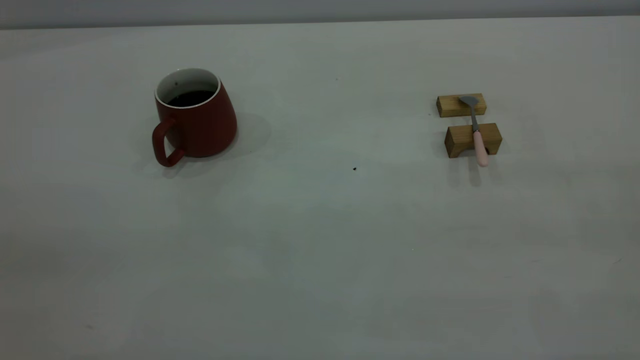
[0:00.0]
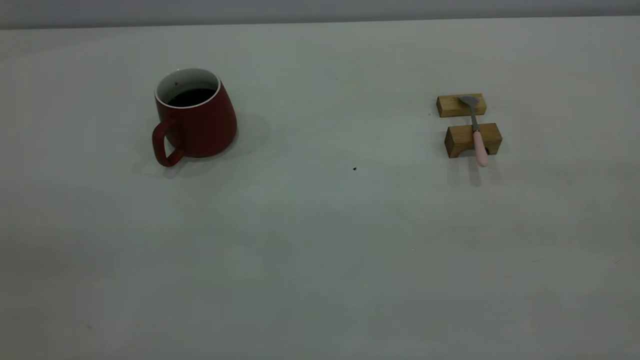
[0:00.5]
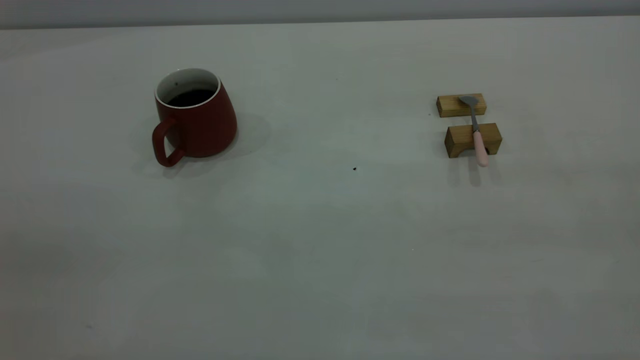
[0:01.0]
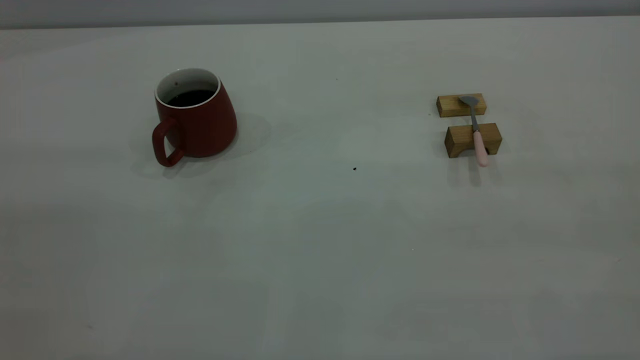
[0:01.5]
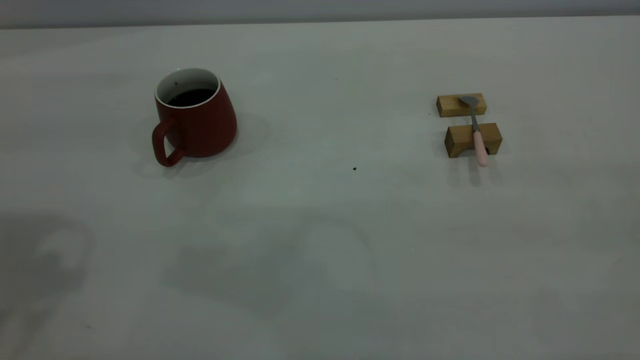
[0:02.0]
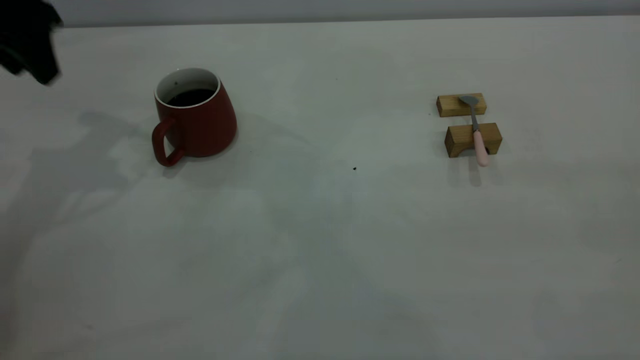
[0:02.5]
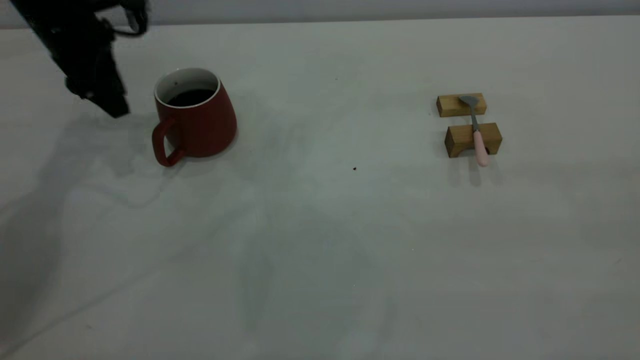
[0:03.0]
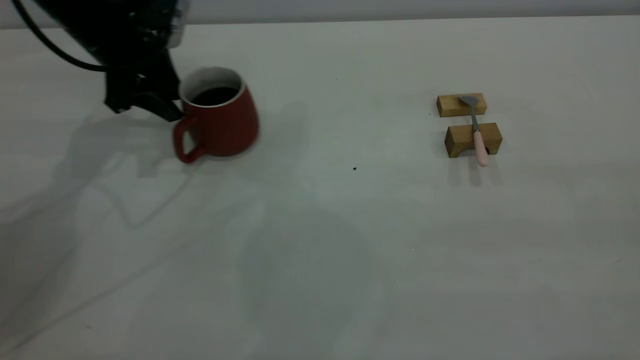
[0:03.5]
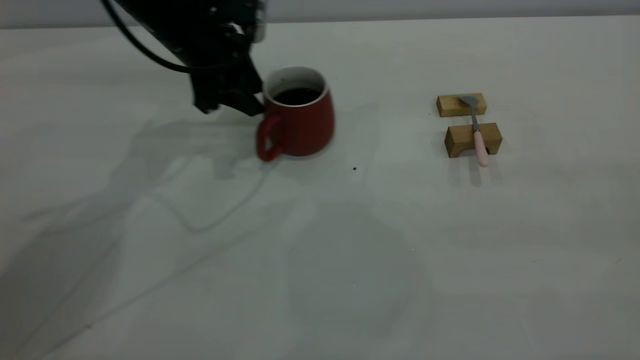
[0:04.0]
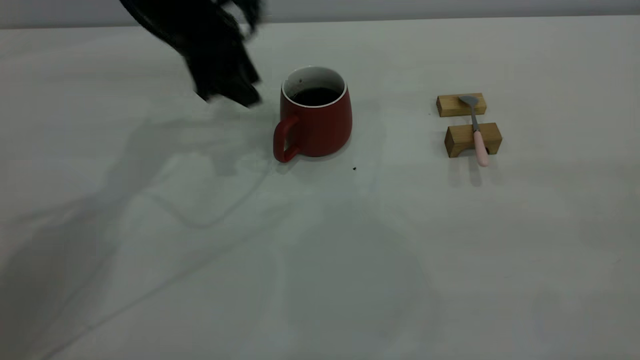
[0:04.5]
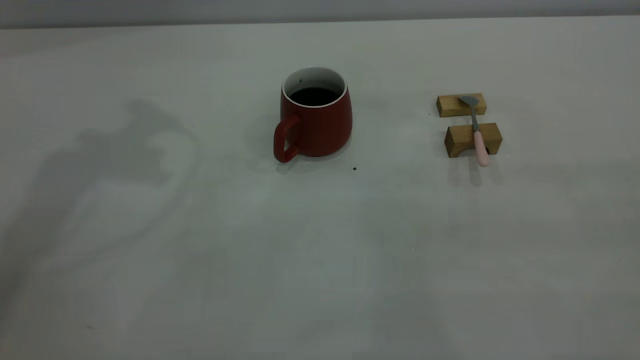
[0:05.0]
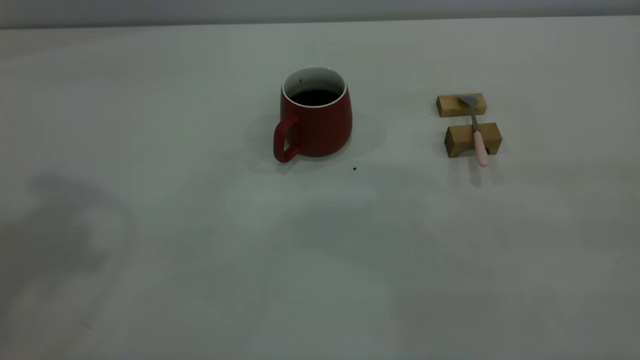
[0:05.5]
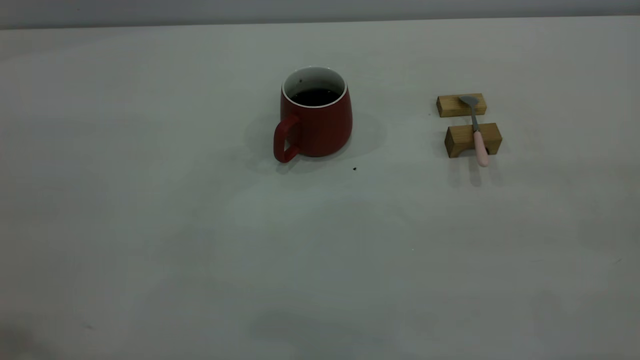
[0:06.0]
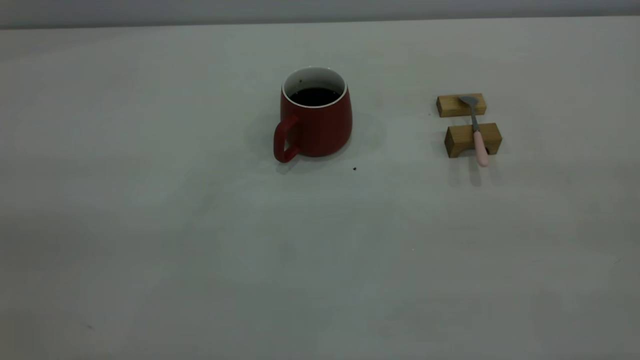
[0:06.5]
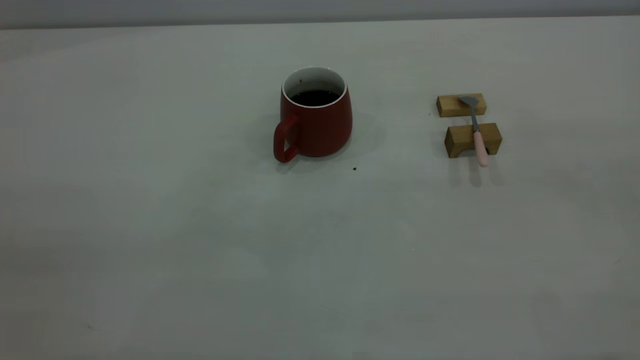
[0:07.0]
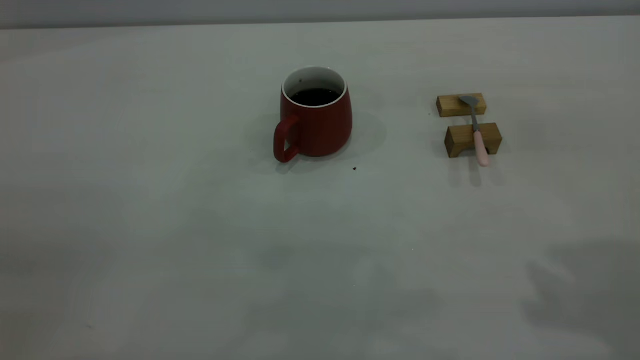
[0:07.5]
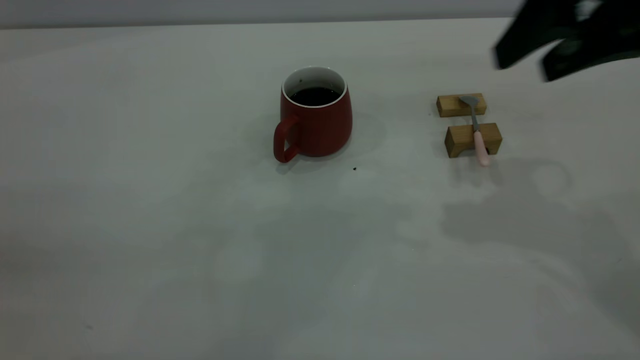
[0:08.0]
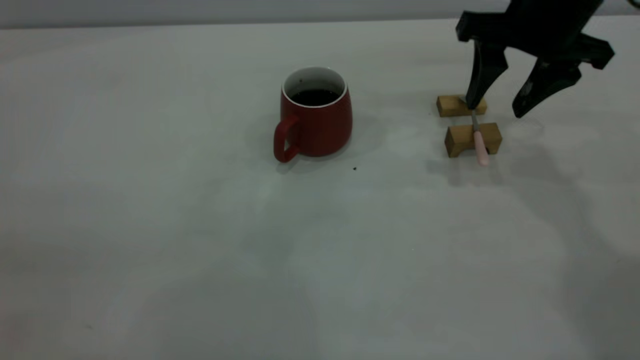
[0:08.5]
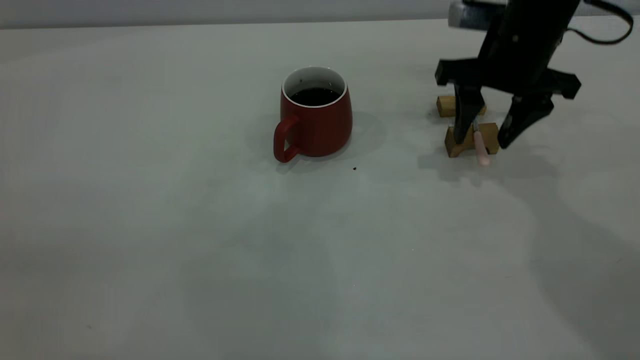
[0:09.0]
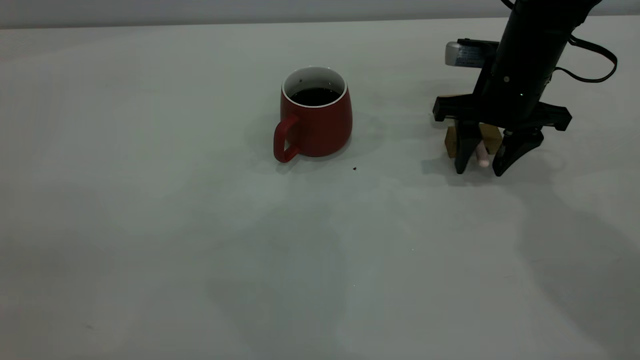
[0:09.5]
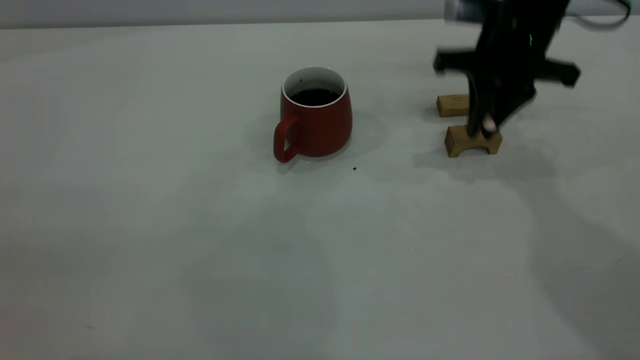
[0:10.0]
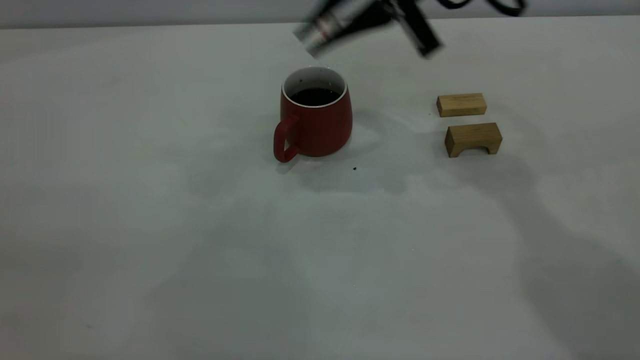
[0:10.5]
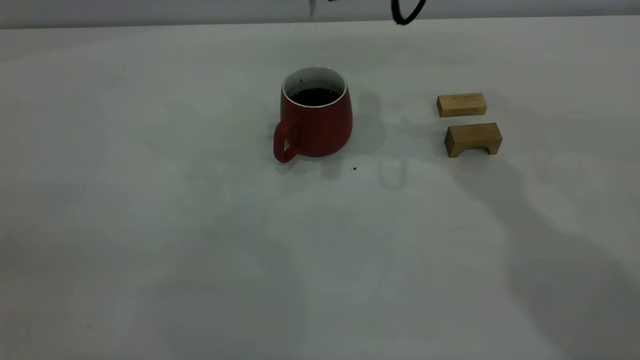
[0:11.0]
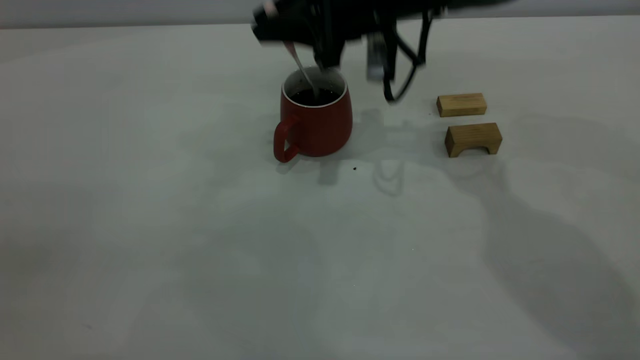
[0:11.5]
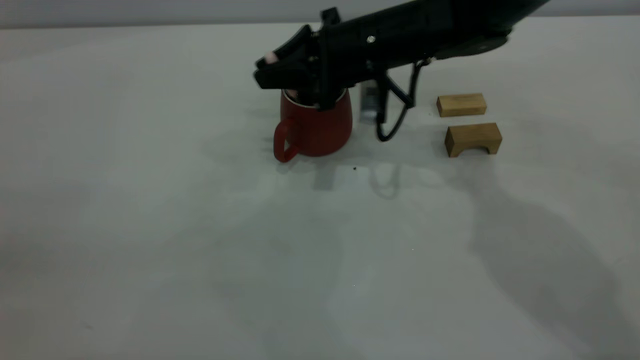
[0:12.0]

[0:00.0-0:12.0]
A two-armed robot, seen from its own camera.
Step, 0:00.0 to 0:04.5: Move the cup with coffee to the center of view.
Step, 0:05.0 to 0:09.5: Pick up the spoon.
0:02.0 to 0:04.0: The left gripper goes some 35 cm forward, downward and to the right.
0:04.0 to 0:06.0: The left gripper goes approximately 40 cm backward and upward.
0:06.0 to 0:08.0: The right gripper travels forward by approximately 30 cm, and opens up.
0:08.0 to 0:10.0: The right gripper goes roughly 15 cm forward and downward, and closes up.
0:10.0 to 0:12.0: The right gripper is displaced to the left and downward by approximately 15 cm.

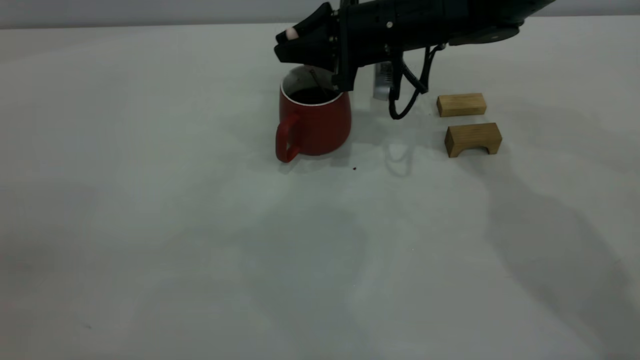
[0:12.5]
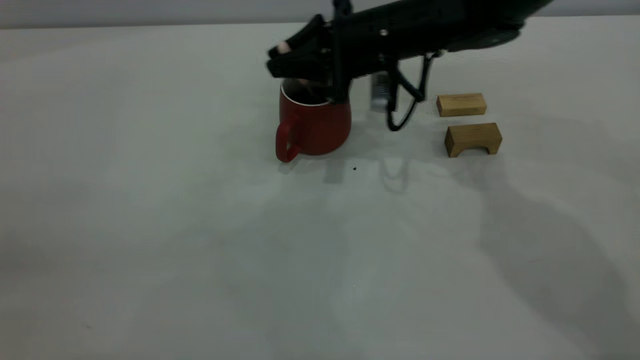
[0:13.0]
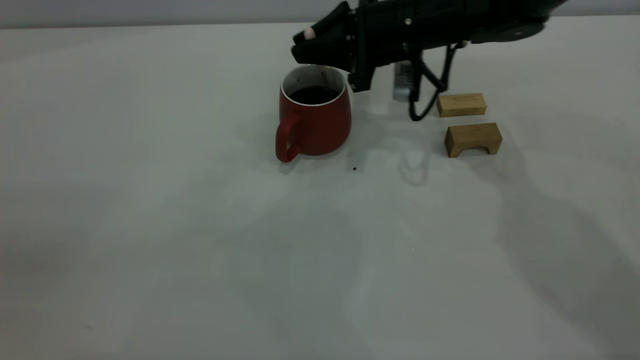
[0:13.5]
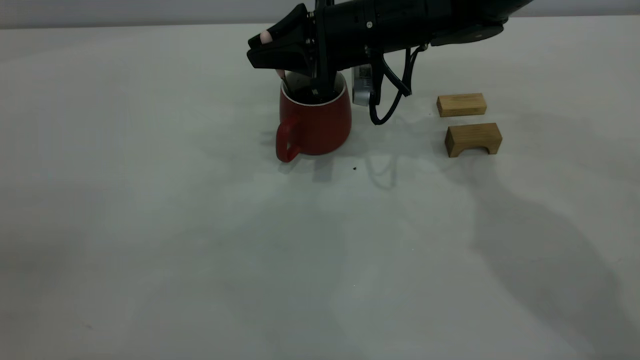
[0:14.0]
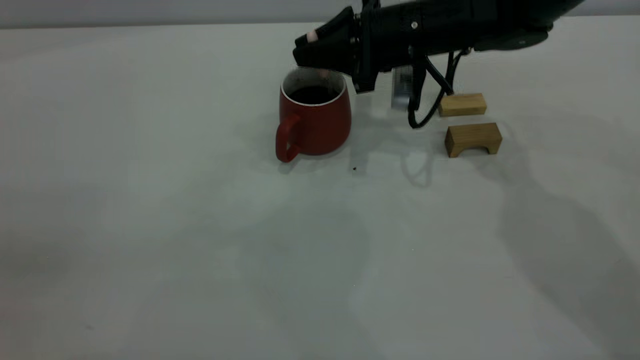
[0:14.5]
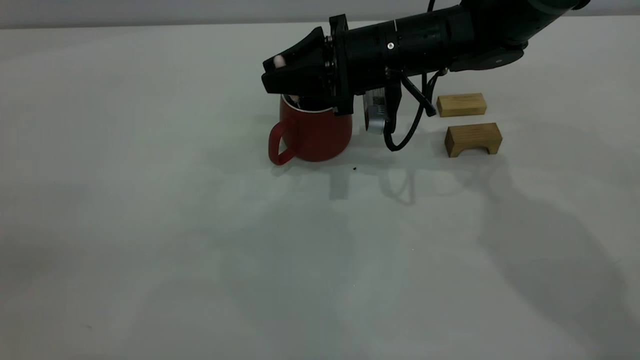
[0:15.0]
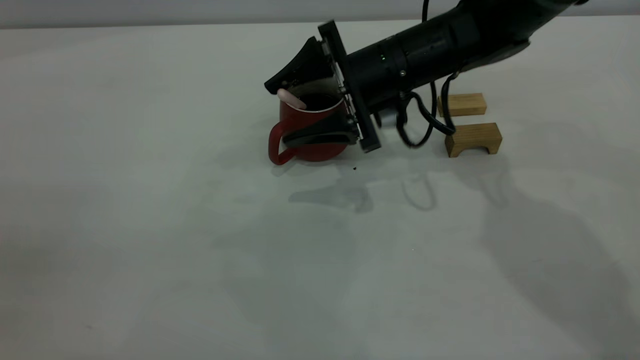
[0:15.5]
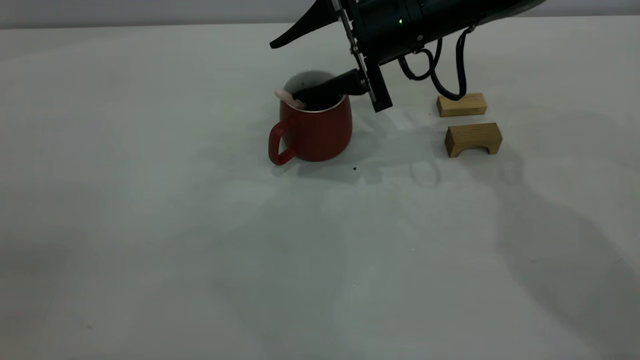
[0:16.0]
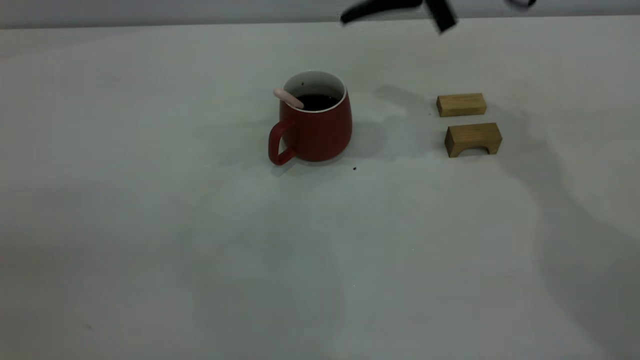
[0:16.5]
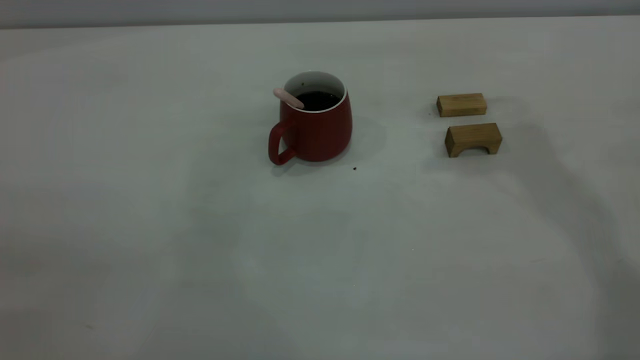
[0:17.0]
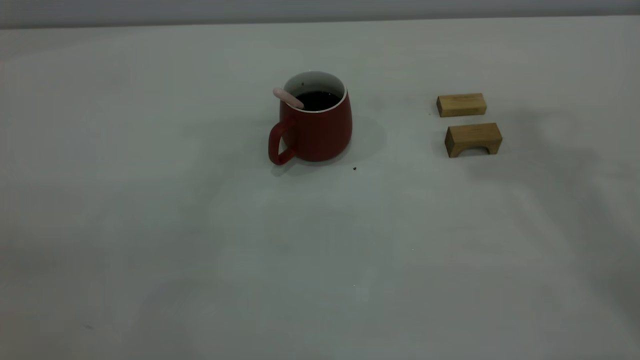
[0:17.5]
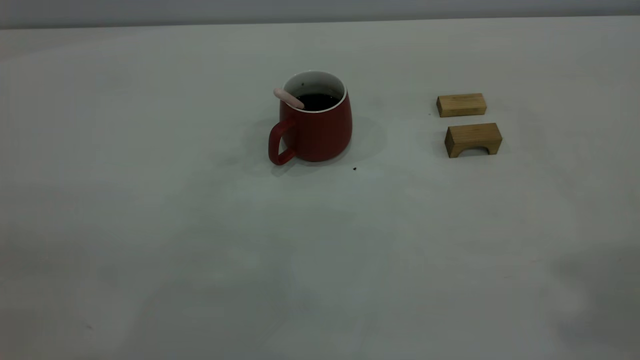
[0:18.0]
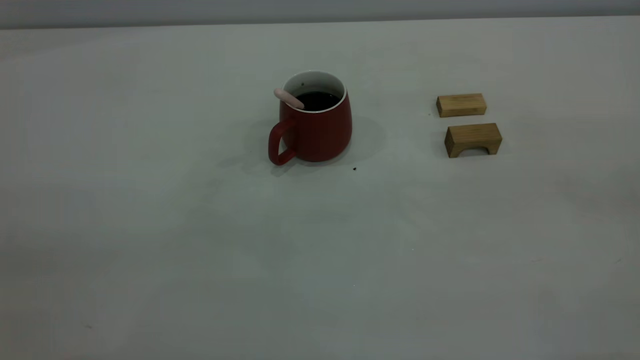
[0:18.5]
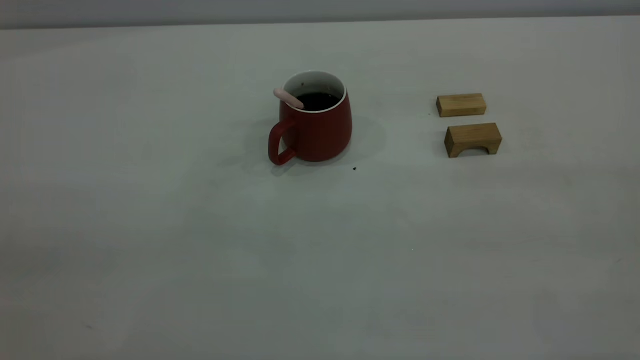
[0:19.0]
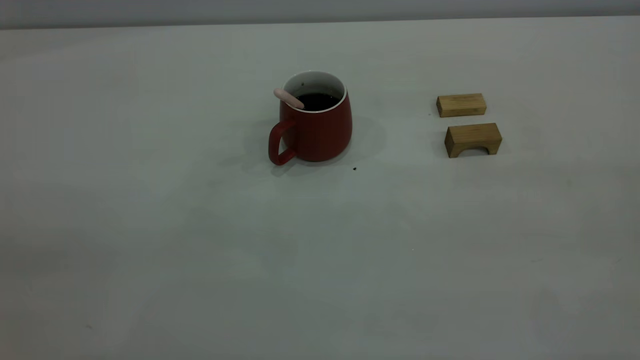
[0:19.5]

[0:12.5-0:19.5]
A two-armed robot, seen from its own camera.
Step, 0:12.5 to 0:16.0: Stir the coffee in the cup.
0:12.5 to 0:14.5: The grippers make only small movements.
0:14.5 to 0:16.0: The right gripper opens up.
0:16.0 to 0:17.5: The right gripper shifts roughly 35 cm upward and to the right, and closes up.
